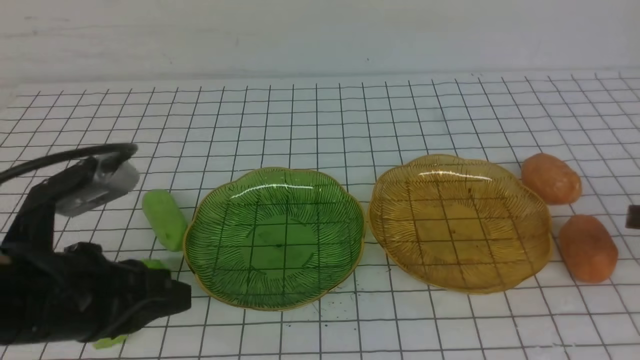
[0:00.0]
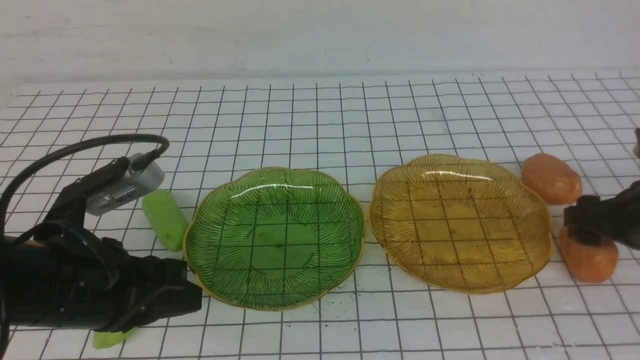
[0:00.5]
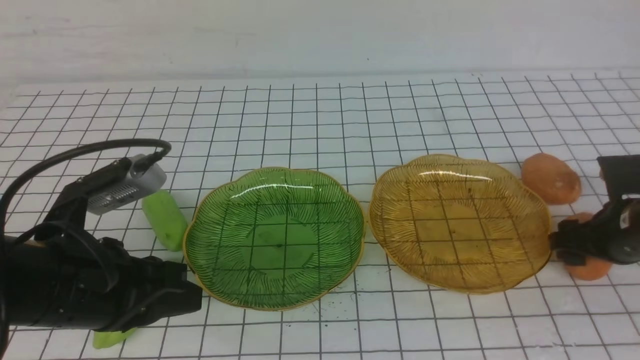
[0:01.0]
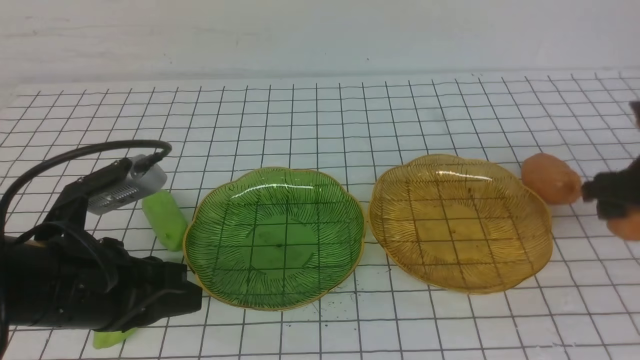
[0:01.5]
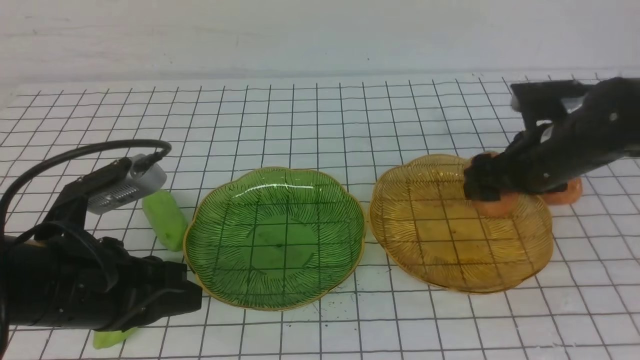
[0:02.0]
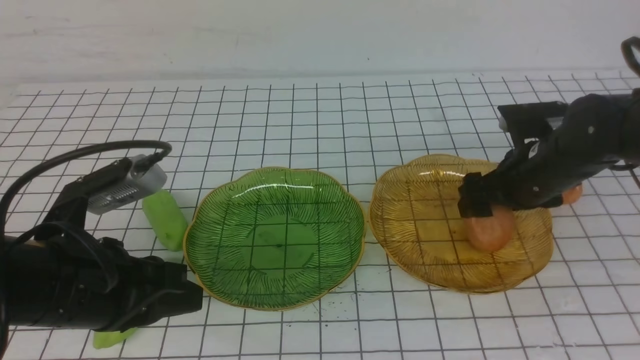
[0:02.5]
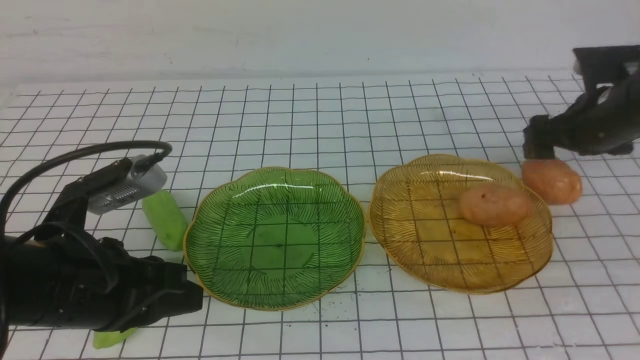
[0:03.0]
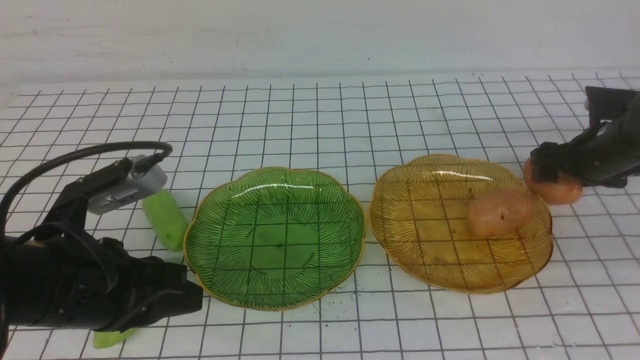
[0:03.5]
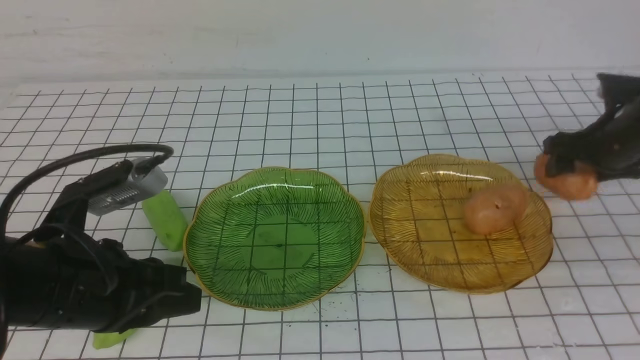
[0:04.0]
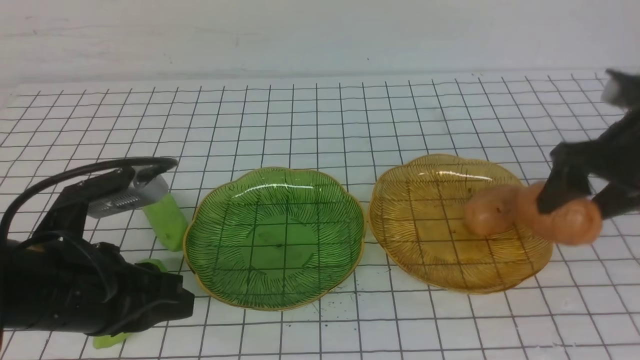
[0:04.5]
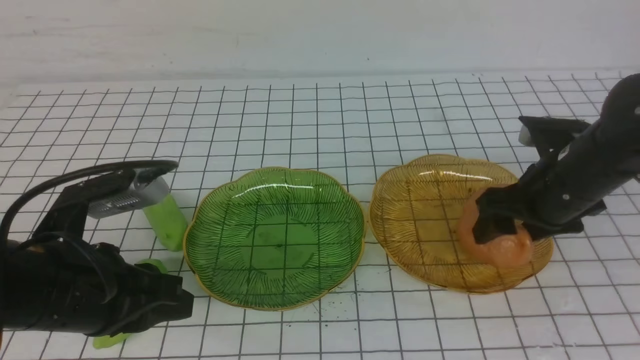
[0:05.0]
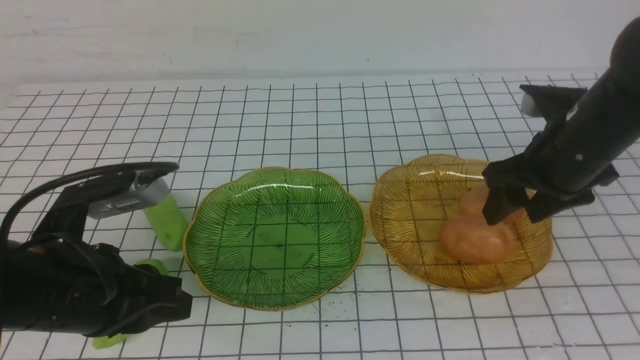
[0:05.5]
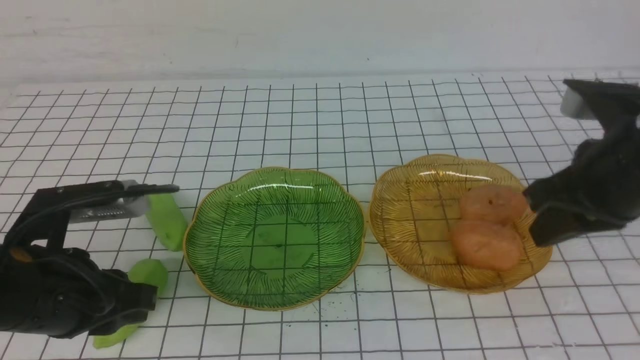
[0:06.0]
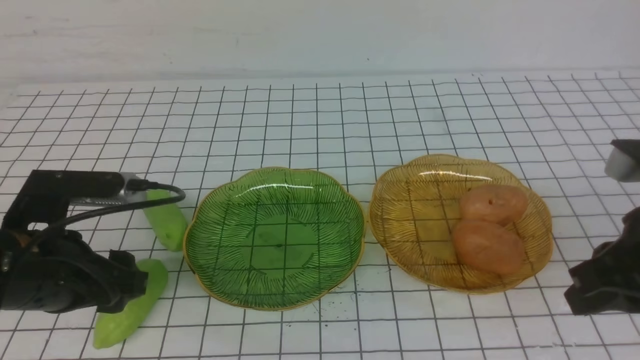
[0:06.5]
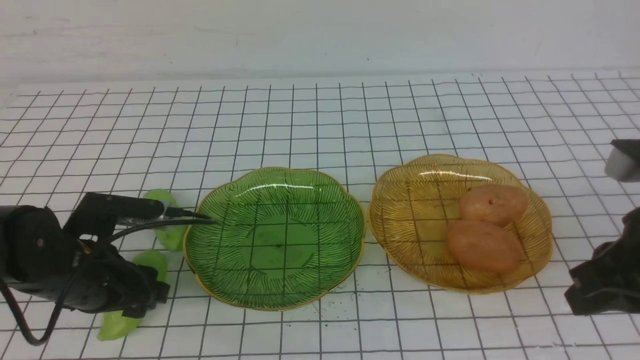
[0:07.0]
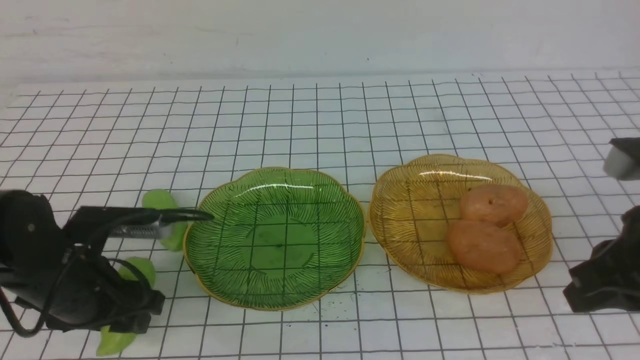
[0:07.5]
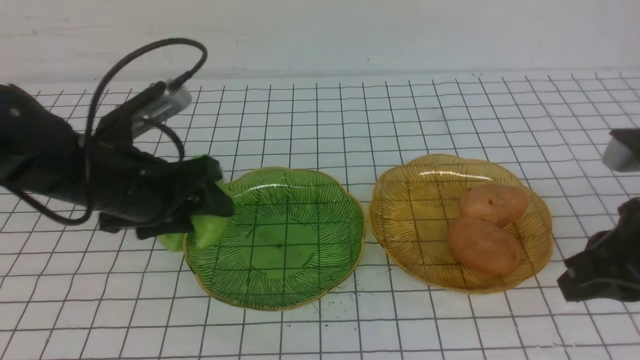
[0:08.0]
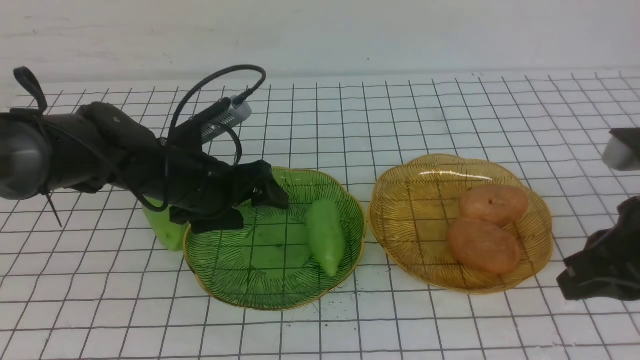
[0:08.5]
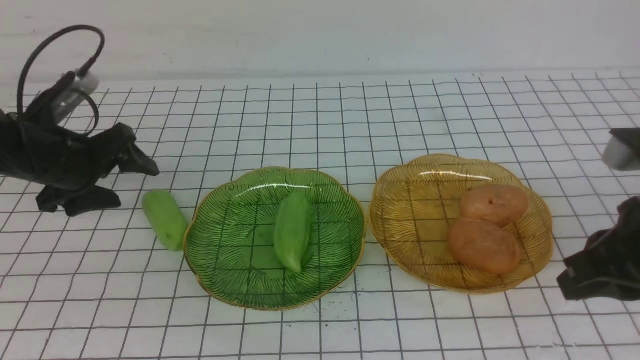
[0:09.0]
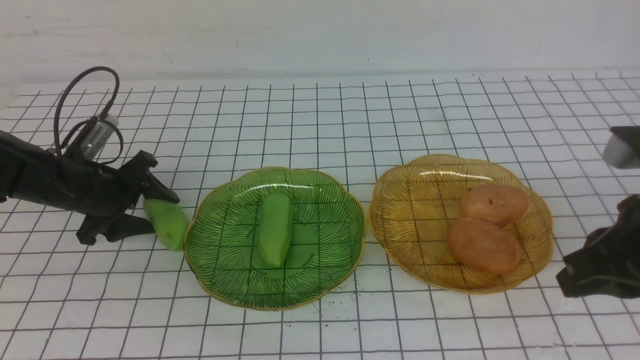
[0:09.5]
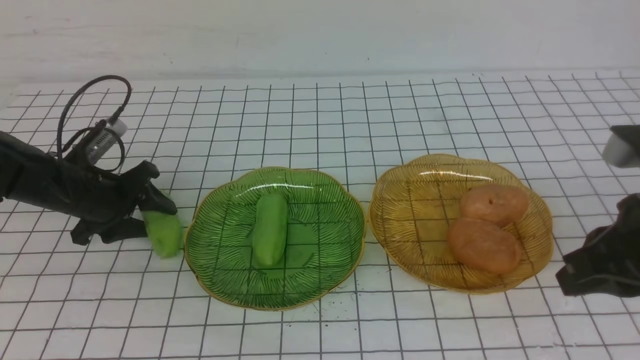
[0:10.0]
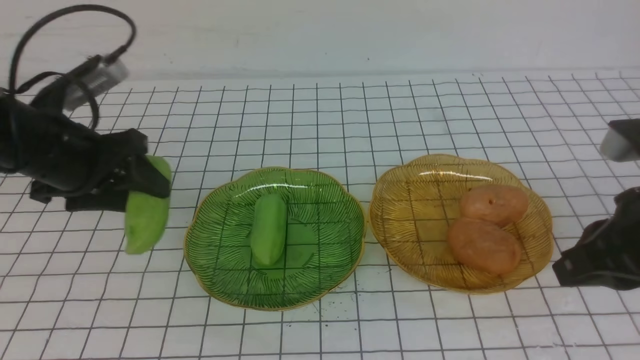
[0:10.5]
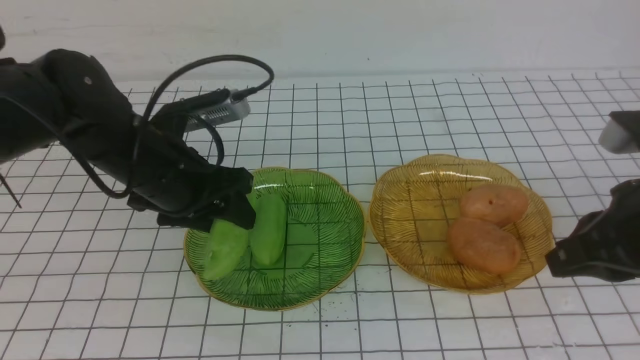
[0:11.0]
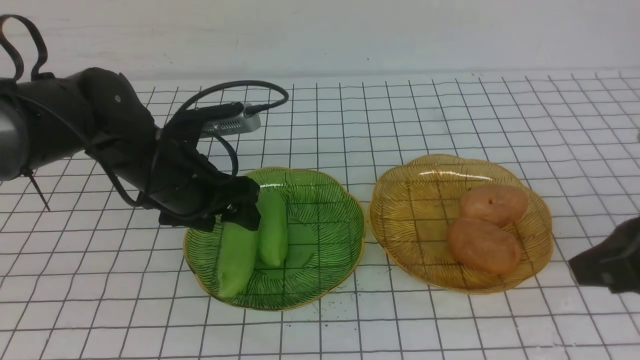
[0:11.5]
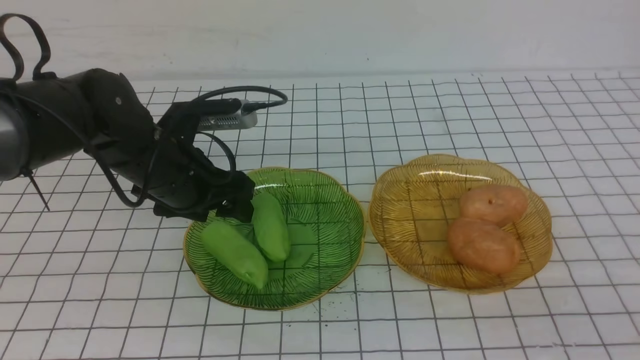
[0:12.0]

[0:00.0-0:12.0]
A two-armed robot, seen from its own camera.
Step, 0:00.0 to 0:02.5: Grab a potato with your right arm and put it on the right plate.
Step, 0:03.0 to 0:05.0: Grab a potato with your right arm and put it on the right plate.
Step, 0:05.5 to 0:08.0: use the left arm to grab a chayote and put it into the left plate.
Step, 0:08.5 to 0:11.5: use the left arm to grab a chayote and put it into the left plate.
0:00.0 to 0:02.0: The right gripper goes approximately 15 cm forward and to the left, and opens its fingers.
0:02.0 to 0:04.0: The right gripper travels to the right by roughly 10 cm.
0:04.0 to 0:06.0: The right gripper moves backward, to the left and upward, approximately 20 cm, and closes up.
0:06.0 to 0:08.0: The right gripper is displaced backward by approximately 5 cm, while the left gripper is displaced forward by some 10 cm, and opens up.
0:08.0 to 0:10.0: The left gripper is displaced to the left, downward and forward by approximately 15 cm.
0:10.0 to 0:12.0: The left gripper moves to the right and upward, about 15 cm. The right gripper goes some 15 cm backward.

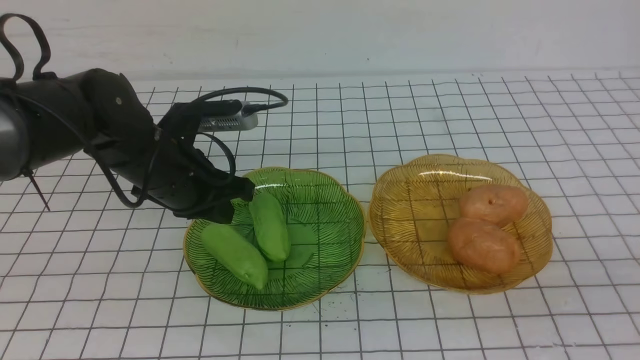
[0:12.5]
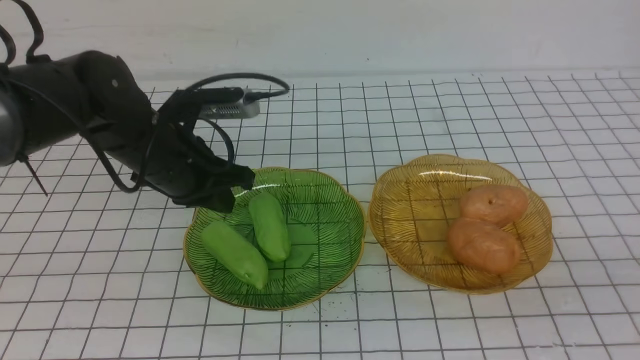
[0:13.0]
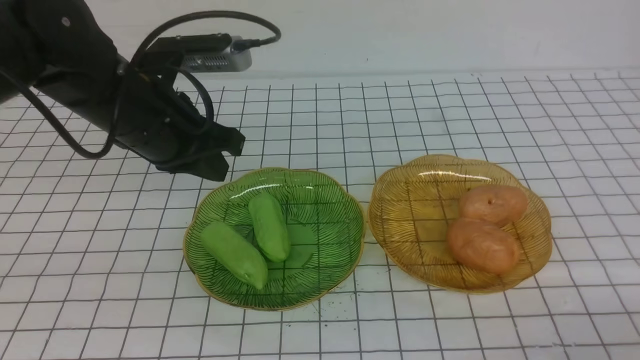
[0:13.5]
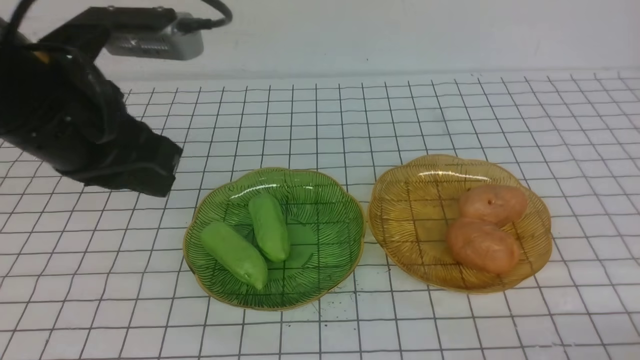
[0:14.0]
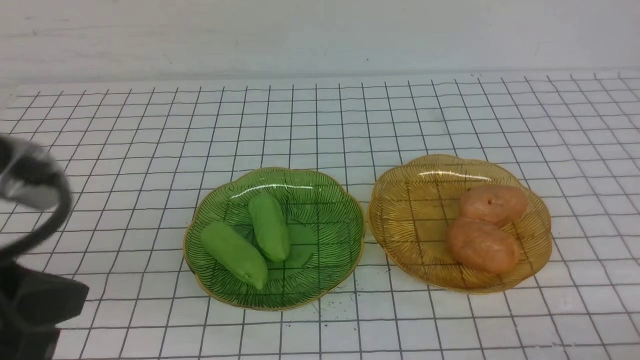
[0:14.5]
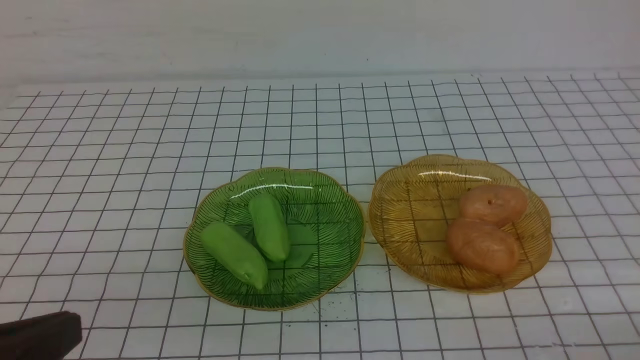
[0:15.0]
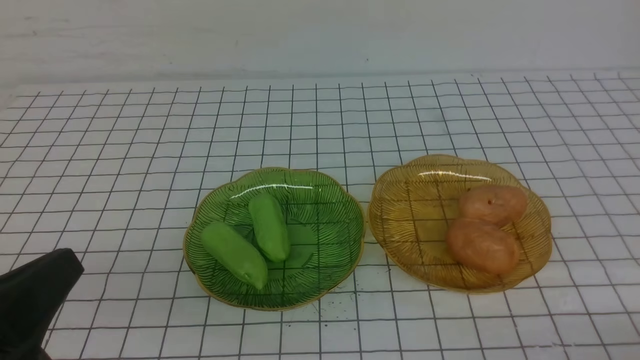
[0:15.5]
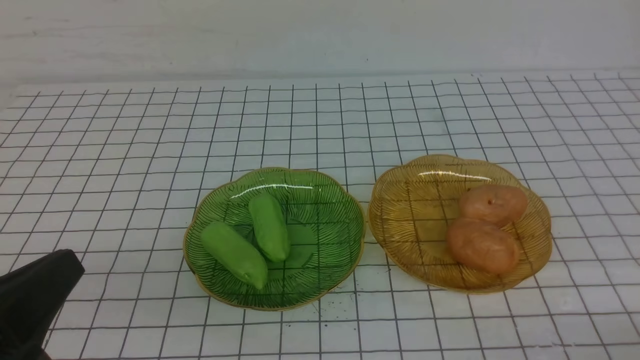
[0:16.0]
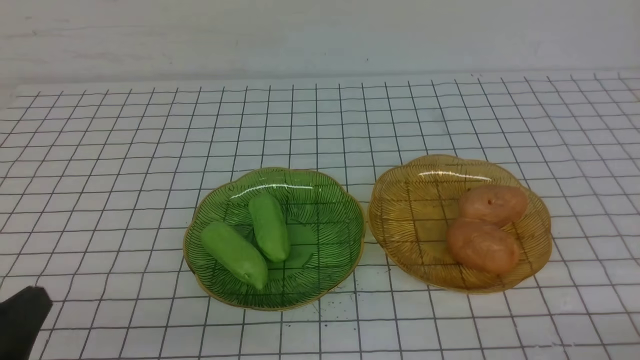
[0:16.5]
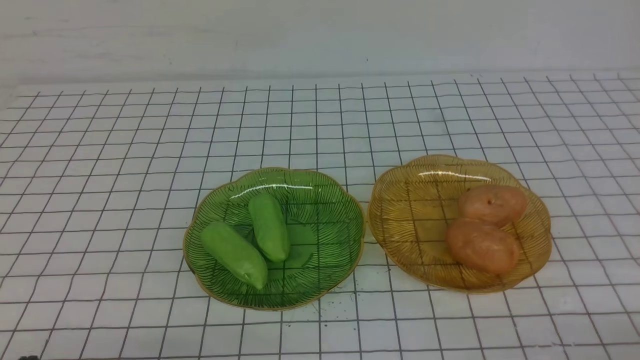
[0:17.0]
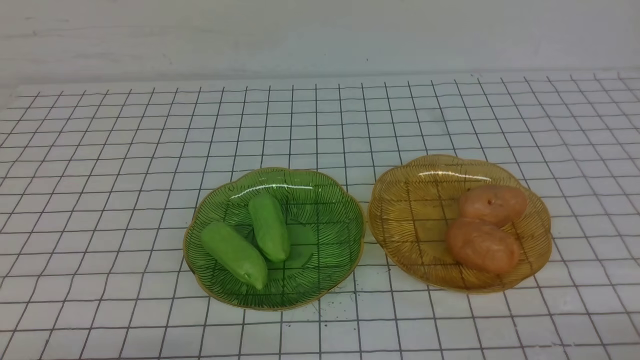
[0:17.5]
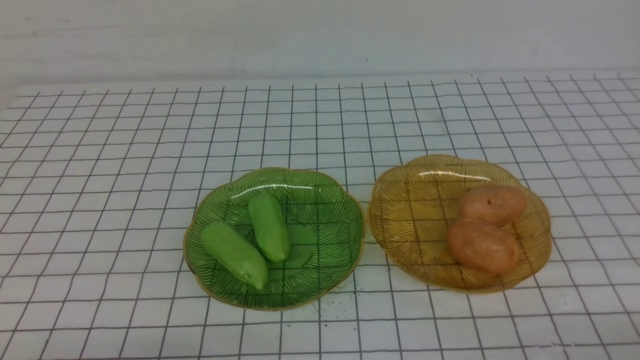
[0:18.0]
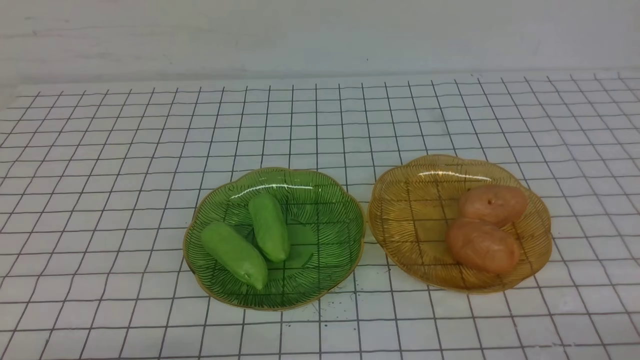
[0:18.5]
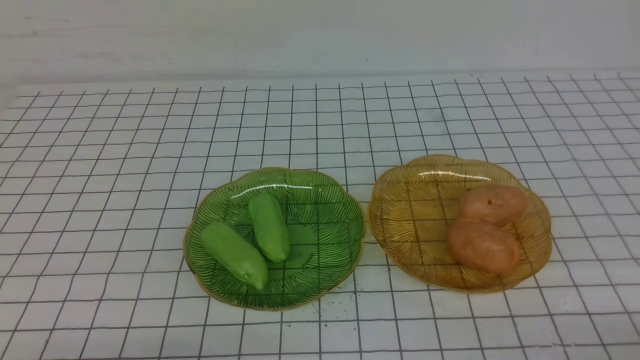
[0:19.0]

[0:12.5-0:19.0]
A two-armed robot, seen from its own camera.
0:12.5 to 0:14.5: The left gripper is displaced backward and upward by about 25 cm. The right gripper goes approximately 10 cm downward.
0:14.5 to 0:17.0: The left gripper is displaced downward by about 20 cm.
0:17.0 to 0:19.0: The two grippers keep their place.

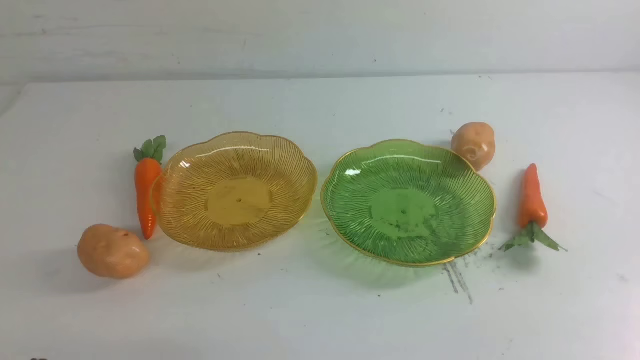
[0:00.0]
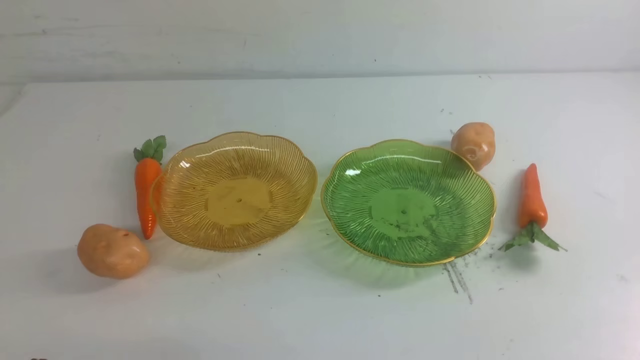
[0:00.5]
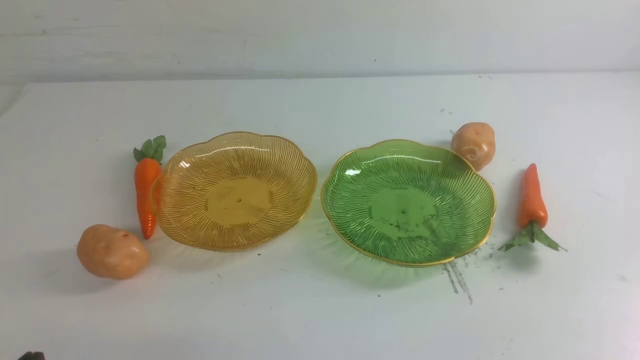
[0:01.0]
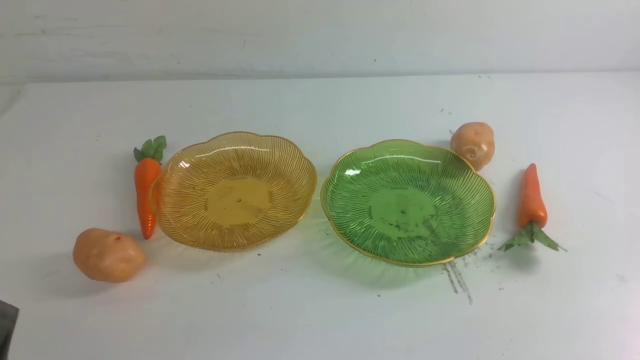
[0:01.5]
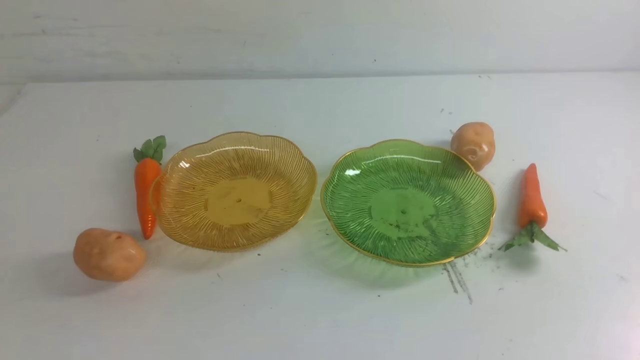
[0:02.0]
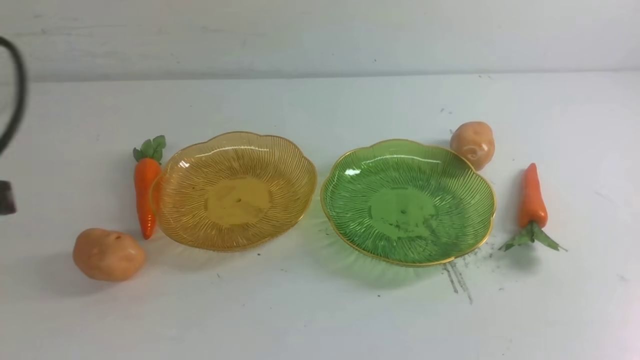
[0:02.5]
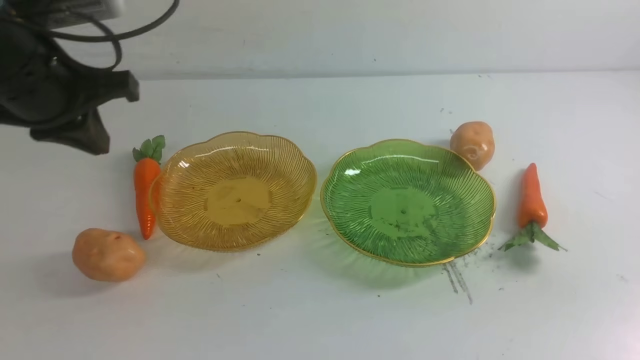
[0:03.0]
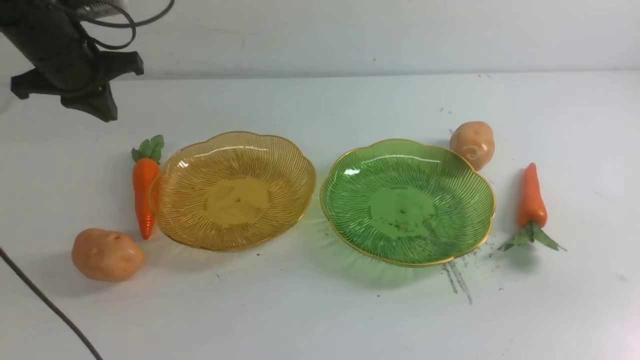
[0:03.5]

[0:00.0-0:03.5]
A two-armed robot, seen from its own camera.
0:02.0 to 0:03.5: The left gripper heads forward, covering some 40 cm.
